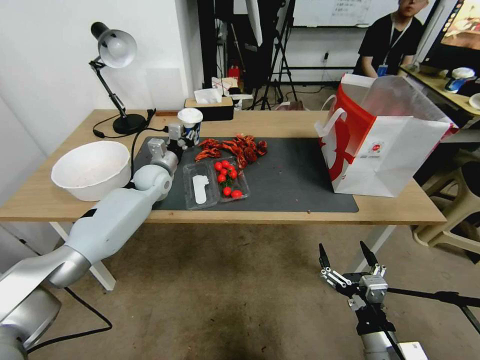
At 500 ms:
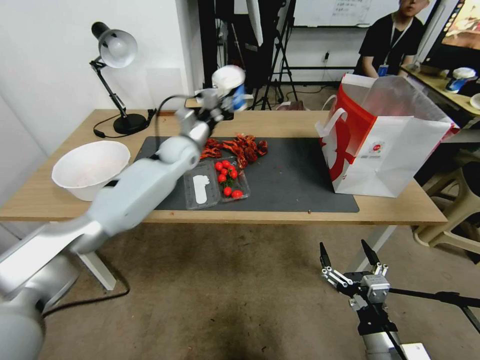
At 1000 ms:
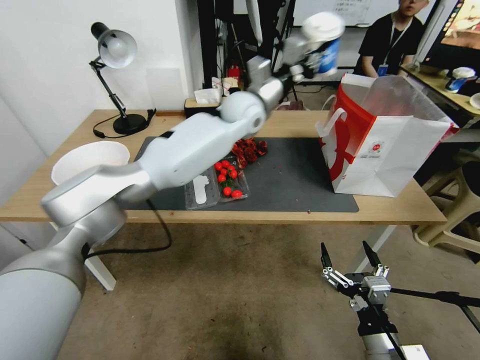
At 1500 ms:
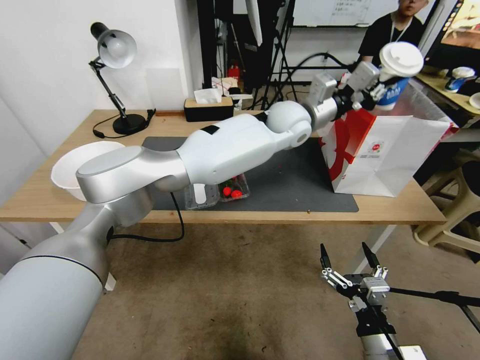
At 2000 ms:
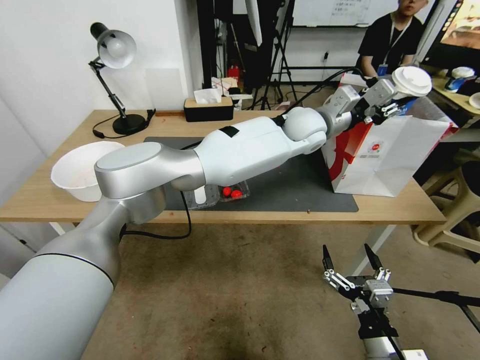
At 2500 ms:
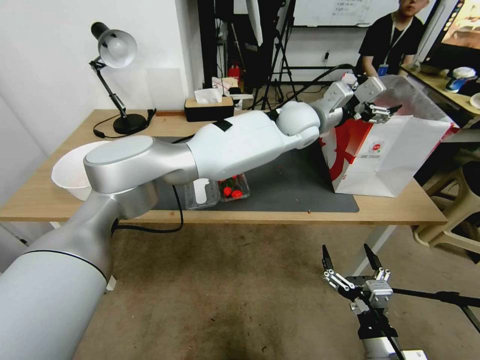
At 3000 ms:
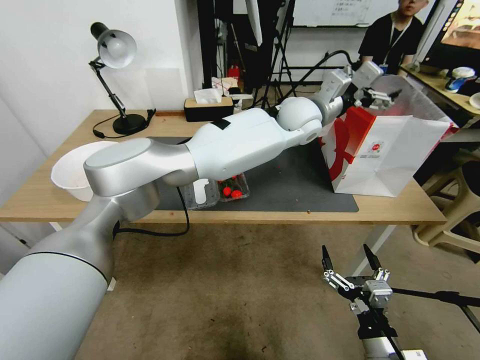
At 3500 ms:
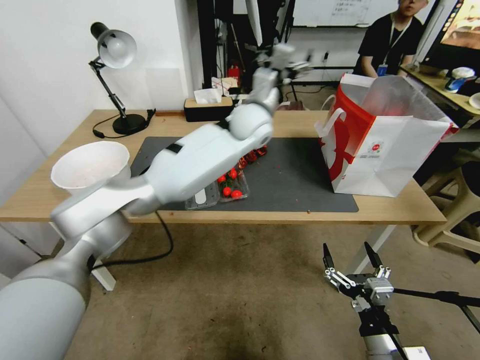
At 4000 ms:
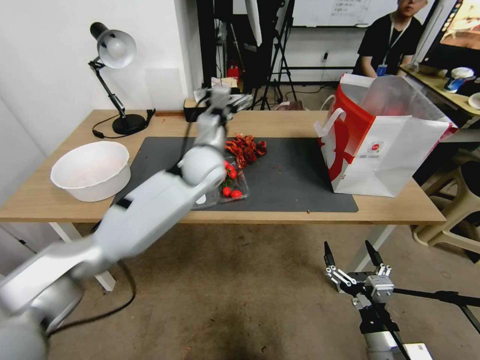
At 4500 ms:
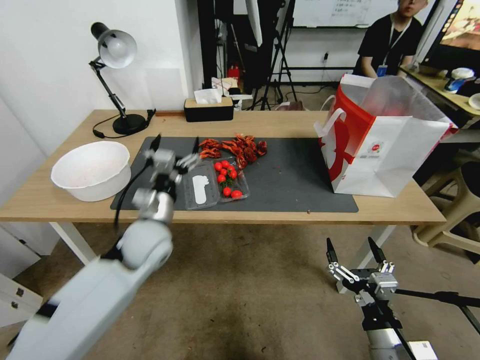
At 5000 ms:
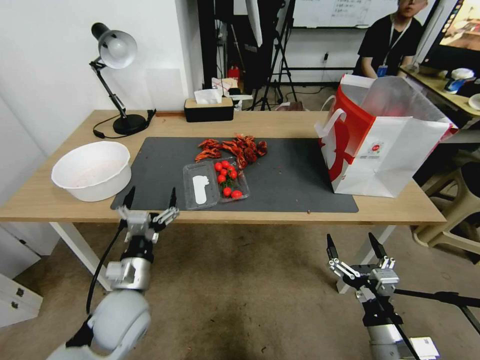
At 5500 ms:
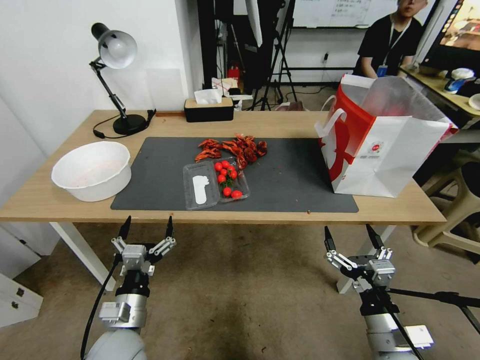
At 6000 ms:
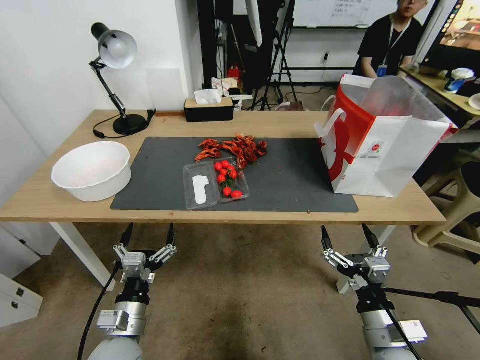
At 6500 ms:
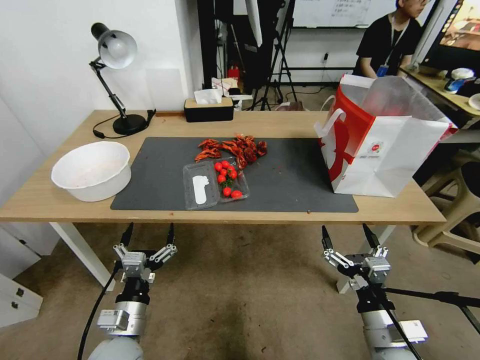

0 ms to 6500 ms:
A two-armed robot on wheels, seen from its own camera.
0 ms to 2000 ms: The left gripper moves to the right and upward, approximately 40 cm.
2000 ms to 4500 ms: The left gripper heads to the left, backward and downward, covering roughly 40 cm, and opens up.
4500 ms to 6500 ms: The left gripper goes about 20 cm backward and downward.
